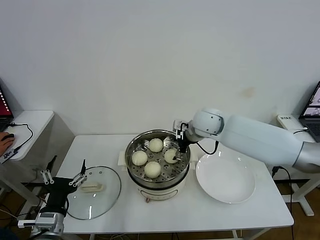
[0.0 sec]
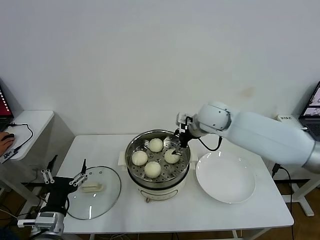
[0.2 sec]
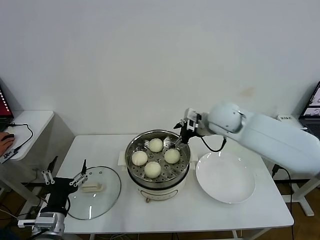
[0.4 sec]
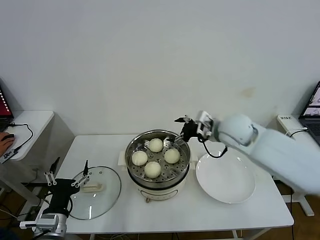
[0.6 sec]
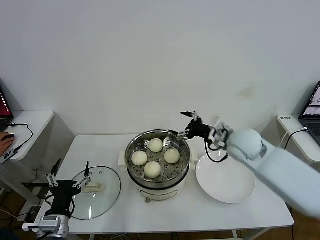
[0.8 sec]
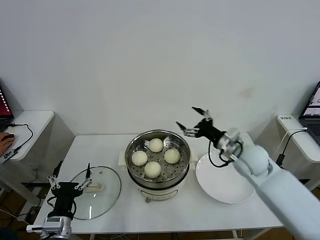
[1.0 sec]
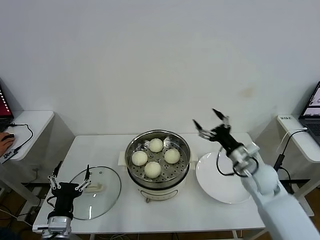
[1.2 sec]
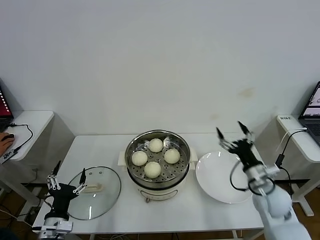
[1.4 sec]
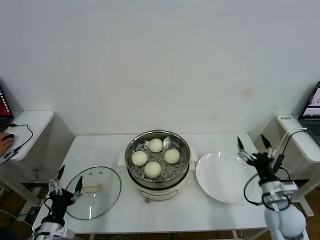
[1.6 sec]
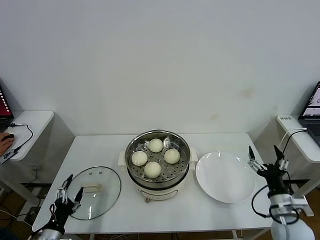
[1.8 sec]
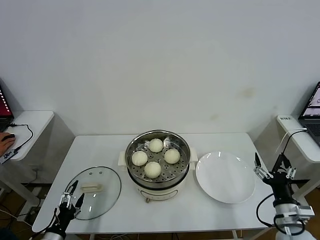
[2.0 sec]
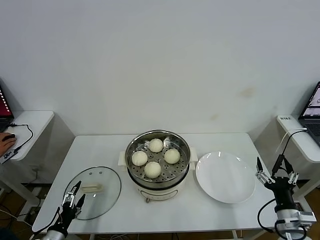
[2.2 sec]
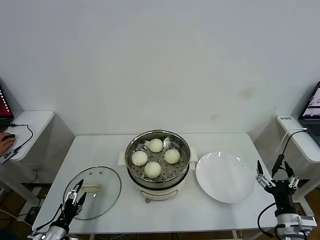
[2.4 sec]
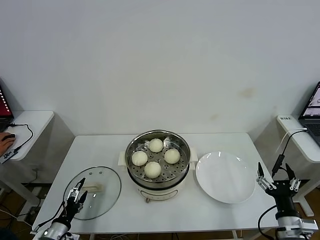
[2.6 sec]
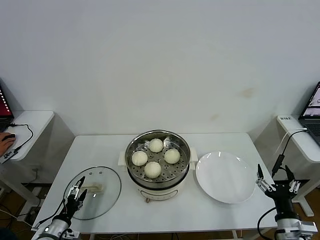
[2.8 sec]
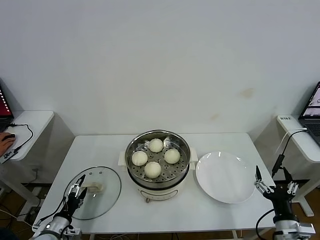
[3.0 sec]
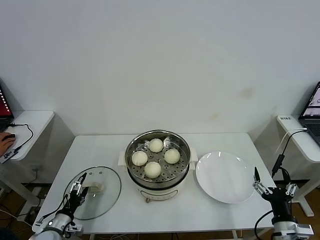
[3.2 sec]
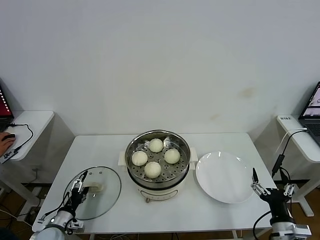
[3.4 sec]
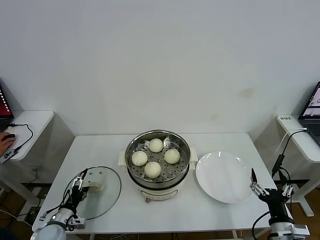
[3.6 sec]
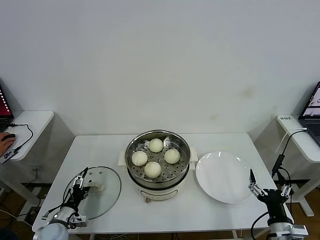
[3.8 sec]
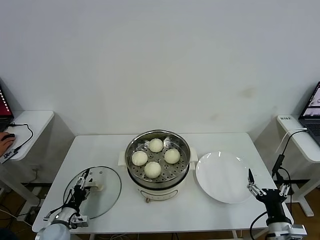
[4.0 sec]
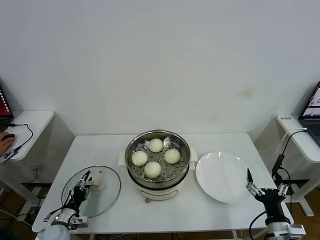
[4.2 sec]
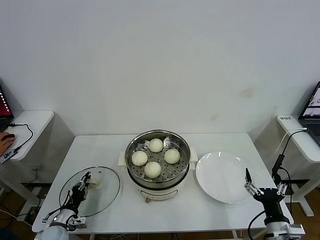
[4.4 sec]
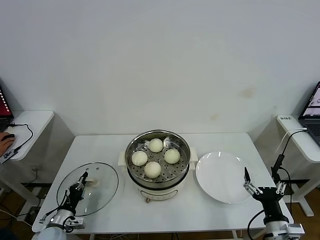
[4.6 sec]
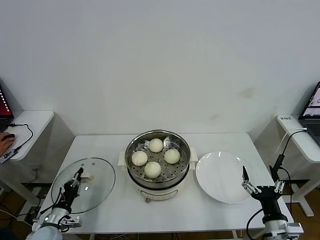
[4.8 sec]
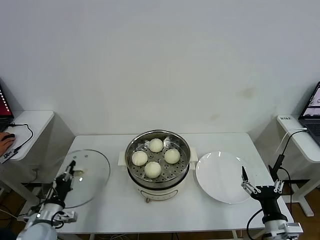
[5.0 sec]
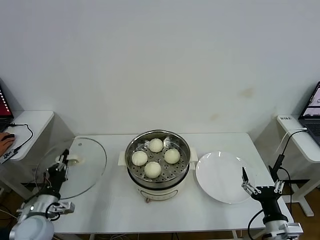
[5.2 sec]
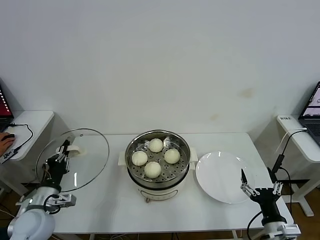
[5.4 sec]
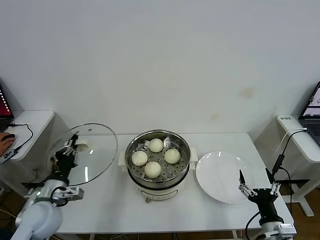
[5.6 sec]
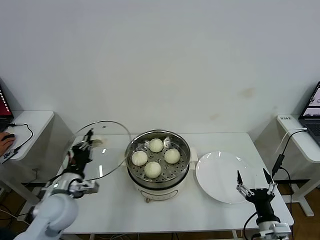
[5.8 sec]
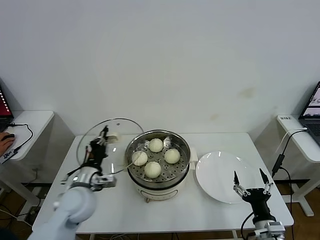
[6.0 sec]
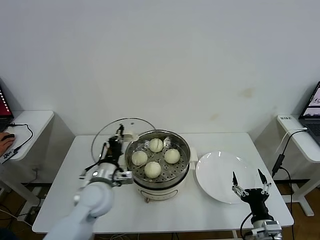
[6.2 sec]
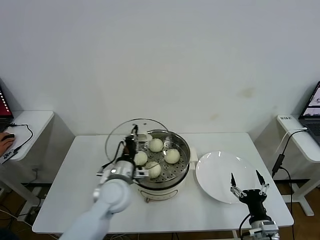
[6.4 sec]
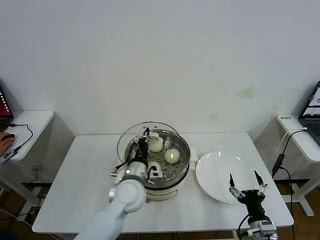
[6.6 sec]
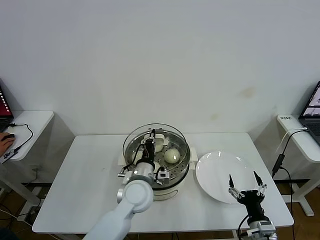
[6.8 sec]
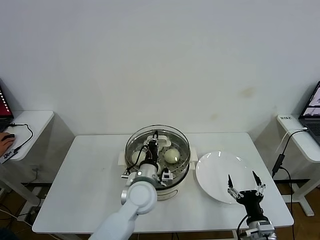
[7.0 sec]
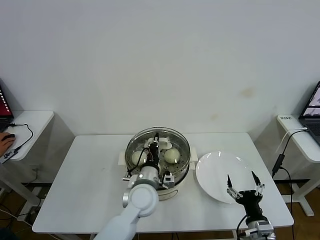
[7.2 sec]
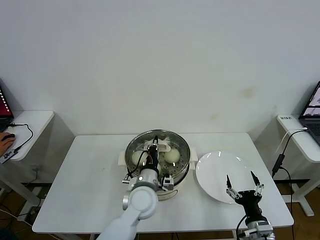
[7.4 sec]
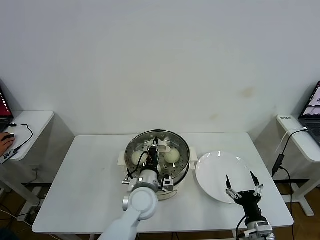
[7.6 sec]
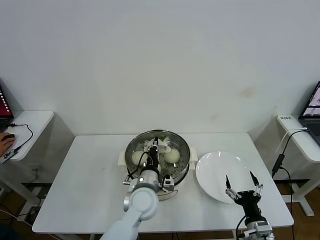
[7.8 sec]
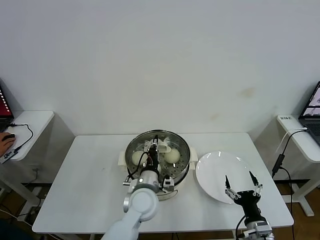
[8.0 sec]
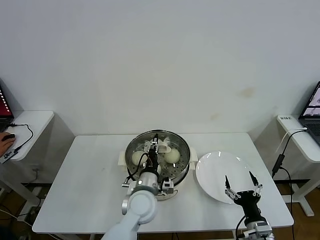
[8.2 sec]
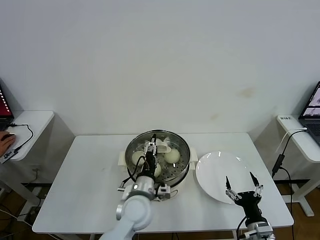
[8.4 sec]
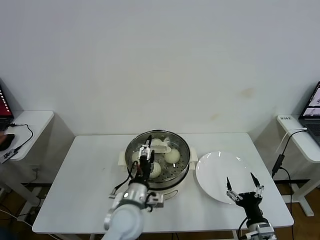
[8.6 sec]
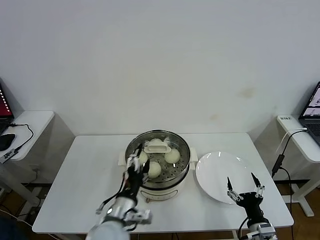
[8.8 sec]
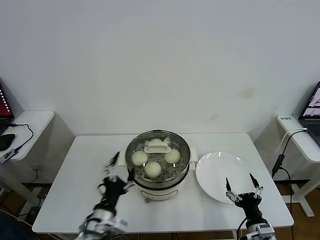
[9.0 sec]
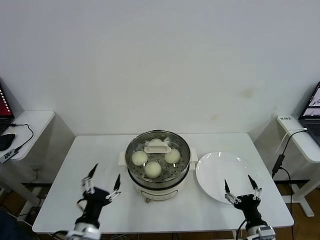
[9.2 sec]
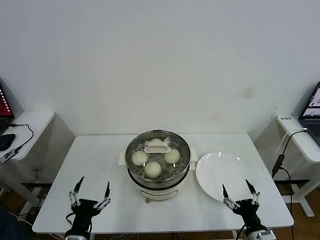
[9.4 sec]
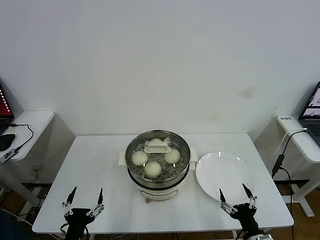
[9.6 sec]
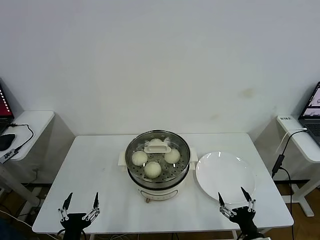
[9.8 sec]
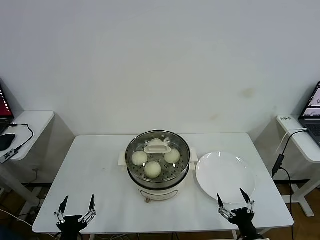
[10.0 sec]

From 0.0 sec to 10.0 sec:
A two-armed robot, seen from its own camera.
Task of the whole recording: take steamed baozi put them in steamer then cover it.
Step, from 0.0 sec to 4.6 sec: Grasp the pot lid with left gripper.
Step, from 4.8 sec to 8.0 sec: Place the pot lid on the steamer with left gripper.
From 0.0 sec to 1.4 sec: The left gripper shifts some 5 cm downward. The right gripper goes about 30 cm backward, to the right and downward.
From 1.4 sec to 2.8 sec: The left gripper moves downward and to the left, about 10 cm; the right gripper is displaced backward by roughly 15 cm.
From 2.8 sec to 4.2 sec: The left gripper shifts roughly 5 cm forward, and closes up.
From 4.2 sec to 5.8 sec: The left gripper travels upward and to the right by some 20 cm, and closes up.
From 5.8 sec to 7.2 sec: The left gripper travels to the right by about 25 cm.
From 7.2 sec to 8.6 sec: The left gripper travels backward by about 5 cm, and opens up.
From 8.6 sec to 10.0 sec: The left gripper is displaced to the left and backward by about 25 cm.
